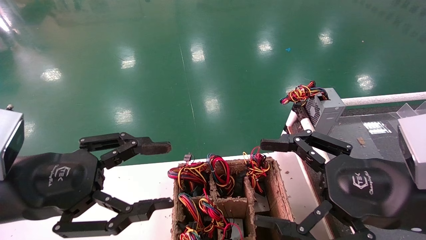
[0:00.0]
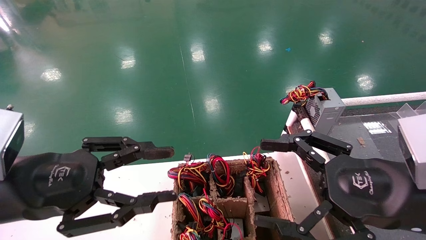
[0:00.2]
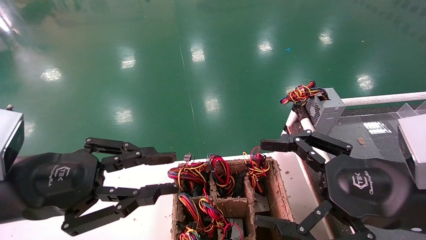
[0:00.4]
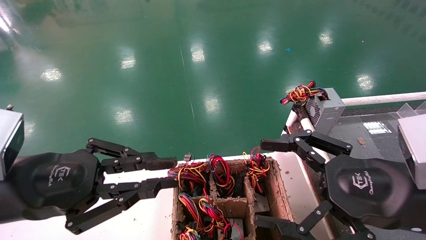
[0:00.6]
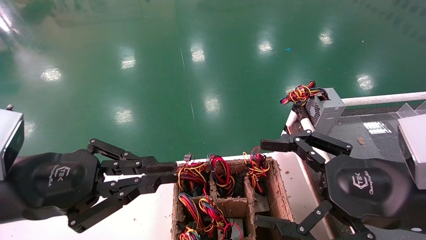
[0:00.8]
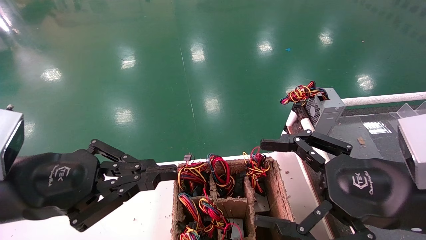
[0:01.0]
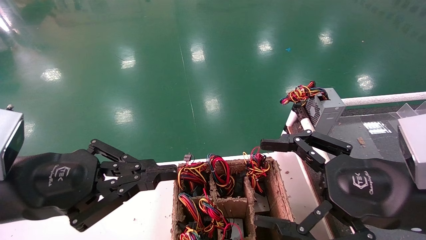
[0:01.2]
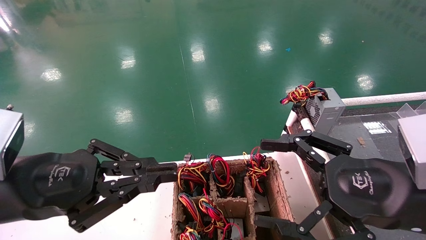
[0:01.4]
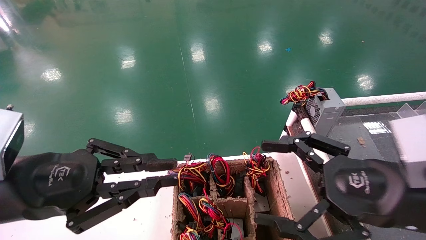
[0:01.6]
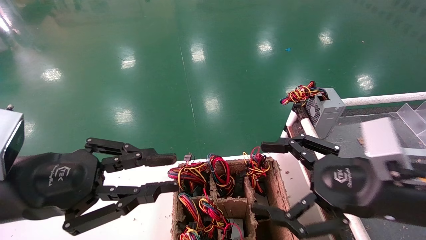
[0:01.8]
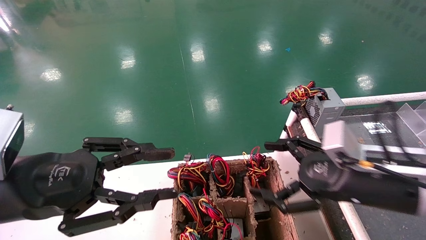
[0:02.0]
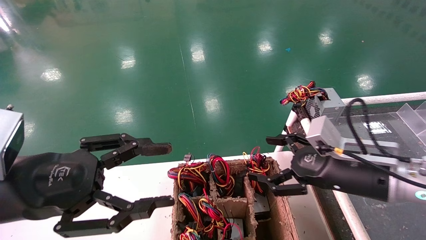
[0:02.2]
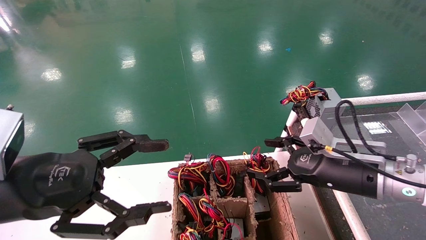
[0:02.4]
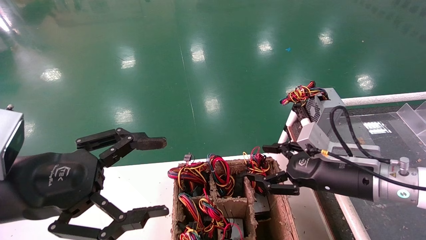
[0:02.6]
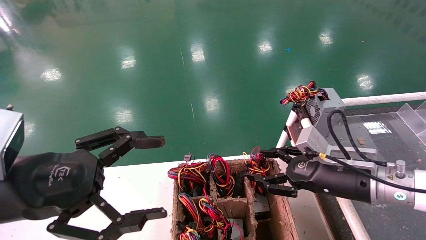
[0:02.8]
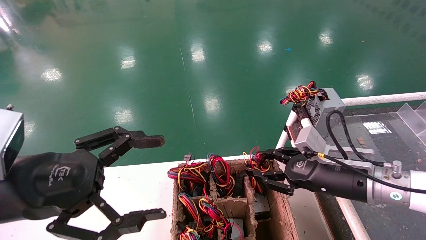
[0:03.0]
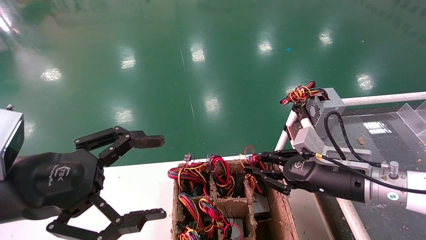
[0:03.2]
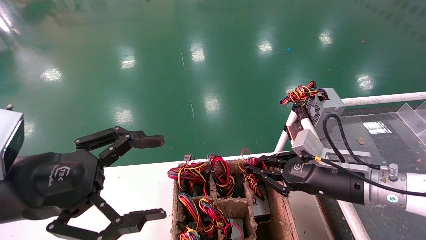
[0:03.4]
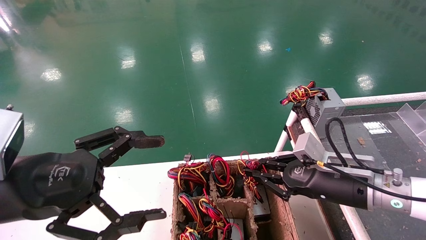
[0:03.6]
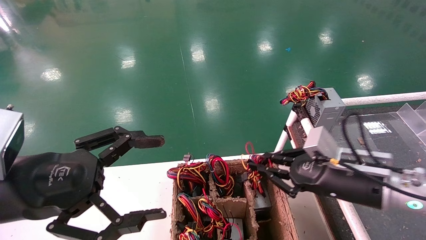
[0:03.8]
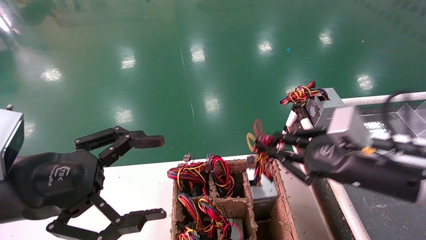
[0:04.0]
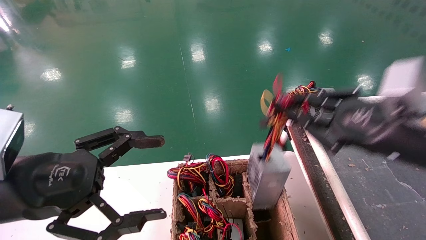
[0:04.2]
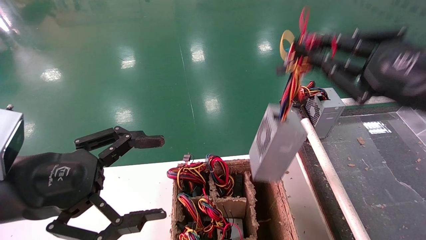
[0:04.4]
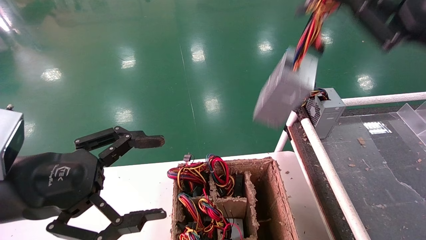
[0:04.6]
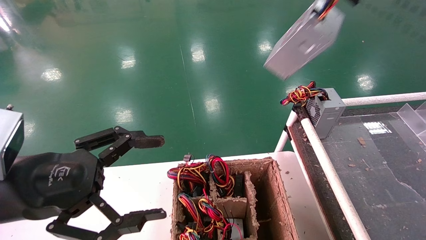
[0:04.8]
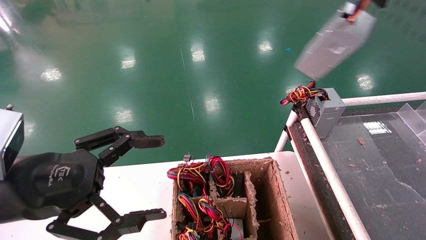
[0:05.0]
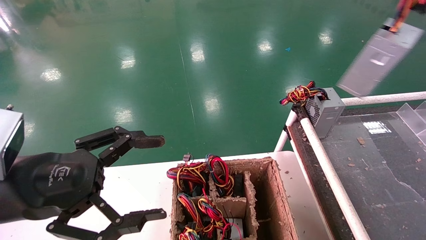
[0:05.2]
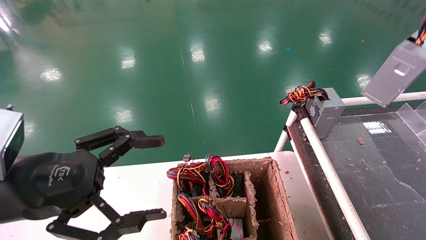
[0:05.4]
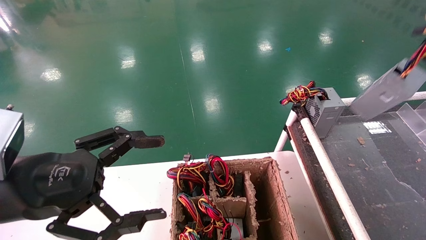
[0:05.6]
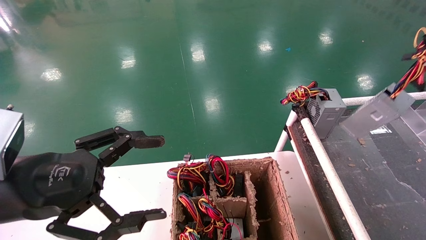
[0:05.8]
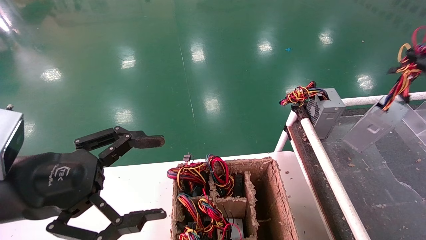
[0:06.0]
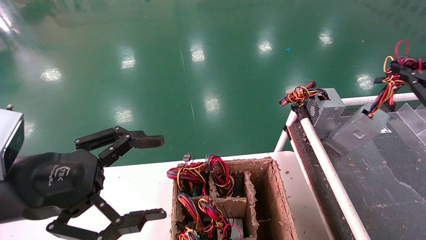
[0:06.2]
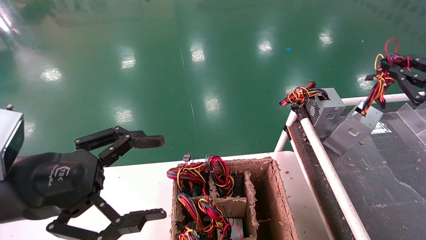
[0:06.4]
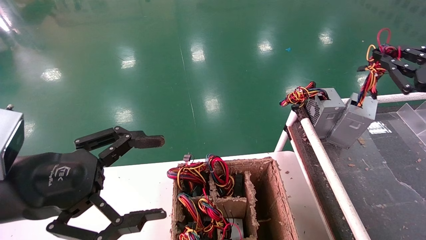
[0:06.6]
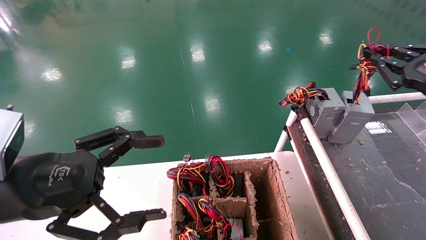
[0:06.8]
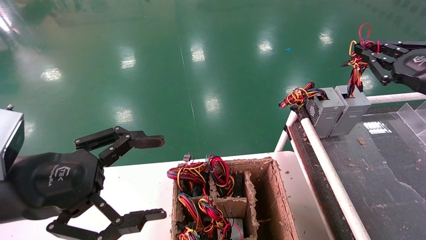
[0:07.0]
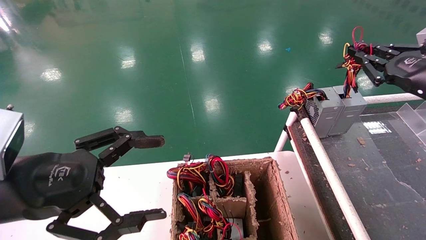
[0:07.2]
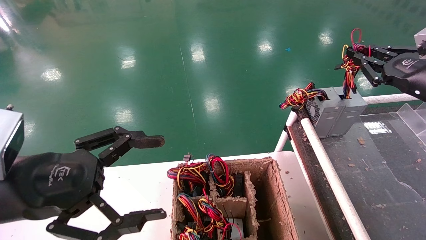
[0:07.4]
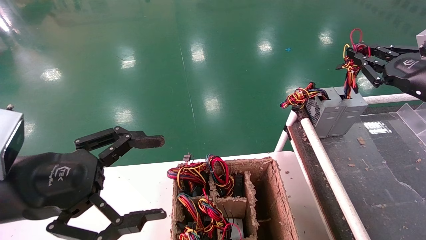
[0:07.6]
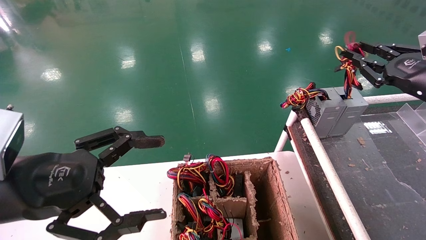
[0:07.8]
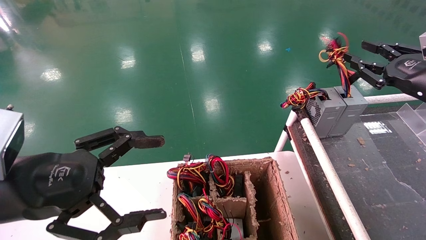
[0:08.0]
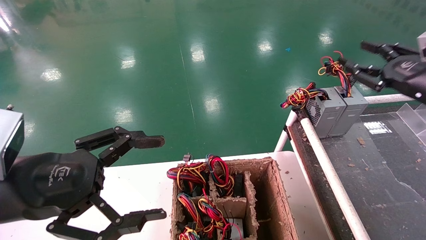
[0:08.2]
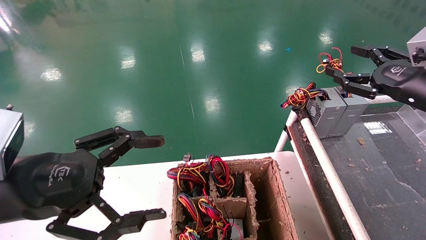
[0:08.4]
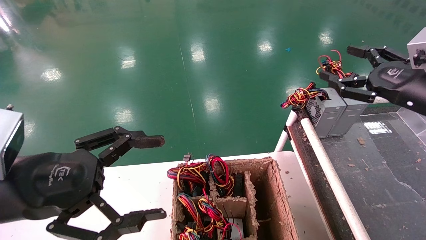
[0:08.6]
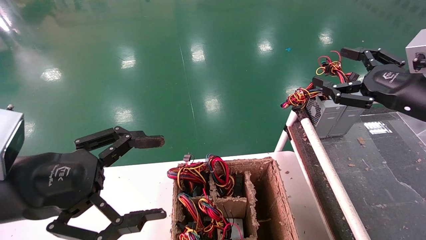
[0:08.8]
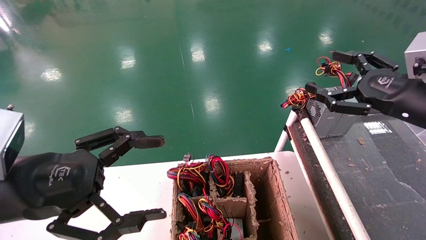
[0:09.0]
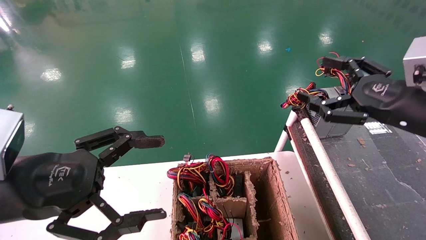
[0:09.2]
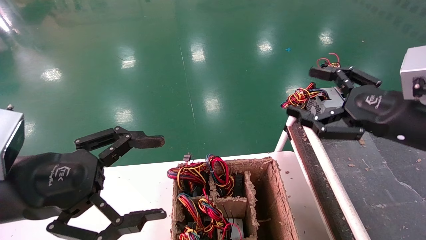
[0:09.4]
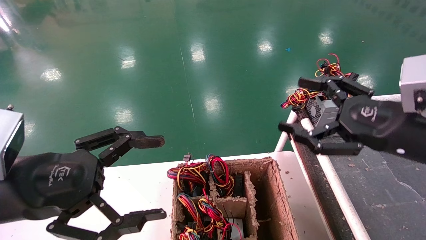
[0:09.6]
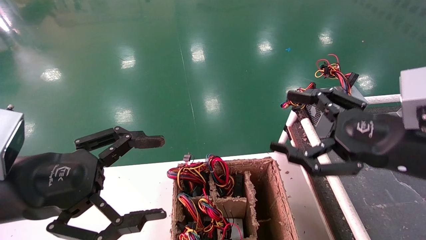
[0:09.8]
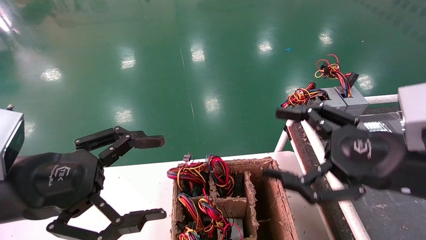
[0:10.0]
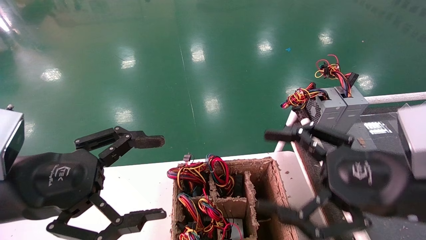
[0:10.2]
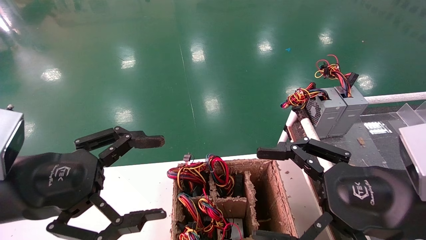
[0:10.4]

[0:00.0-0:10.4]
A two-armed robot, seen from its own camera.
Step, 0:01.6 to 0:03.6: Grab and lift the power supply from the large box.
Step, 0:03.8 to 0:08.0: Place the power supply on the operating table.
0:00.0 to 0:01.4: The left gripper closes its fingers.
0:01.4 to 0:03.0: The right gripper is displaced forward and downward by about 15 cm, and closes, while the left gripper opens up.
0:03.0 to 0:04.4: The right gripper heads upward and backward, covering approximately 20 cm, and closes up.
0:04.4 to 0:06.0: The right gripper goes about 15 cm to the right.
0:06.0 to 0:07.4: The right gripper goes about 10 cm forward.
0:07.4 to 0:09.0: The right gripper heads to the left, covering some 5 cm, and opens up.
0:09.0 to 0:10.4: The right gripper goes roughly 15 cm backward, to the left and downward.
